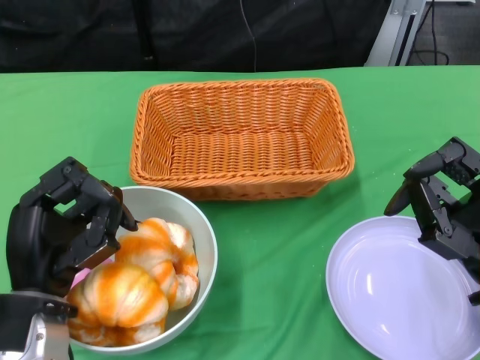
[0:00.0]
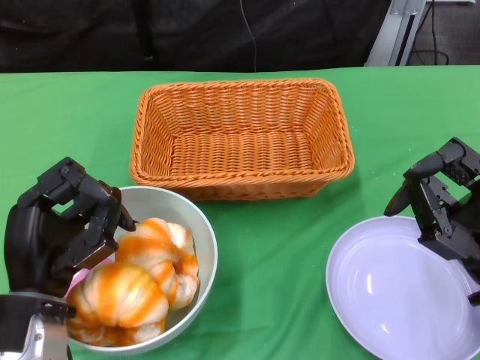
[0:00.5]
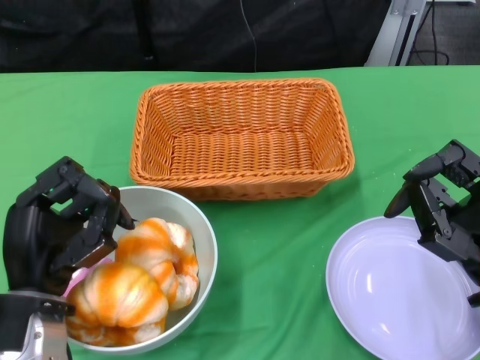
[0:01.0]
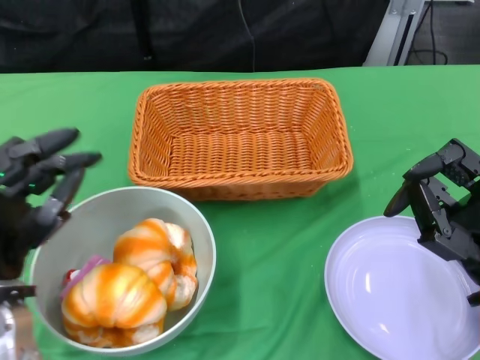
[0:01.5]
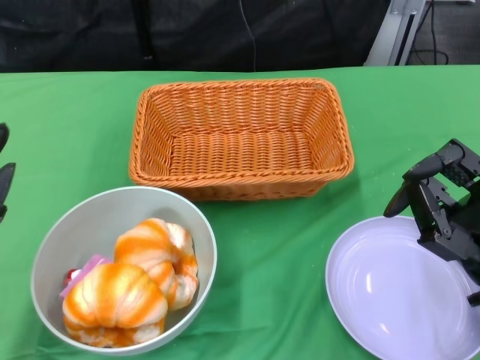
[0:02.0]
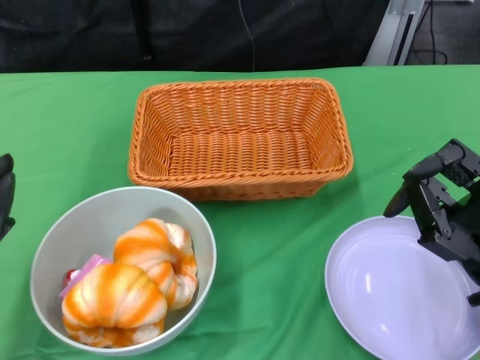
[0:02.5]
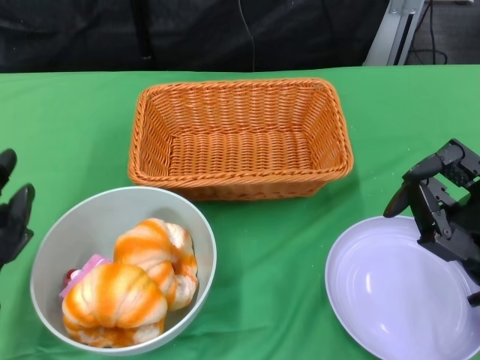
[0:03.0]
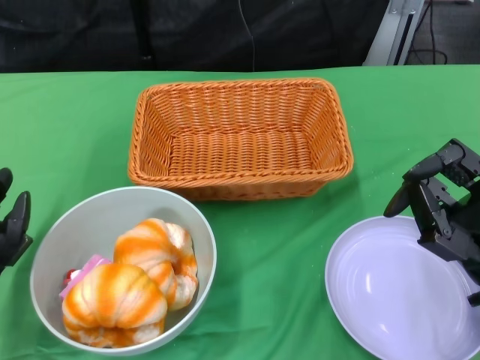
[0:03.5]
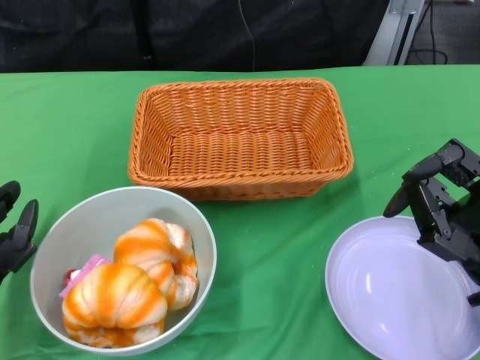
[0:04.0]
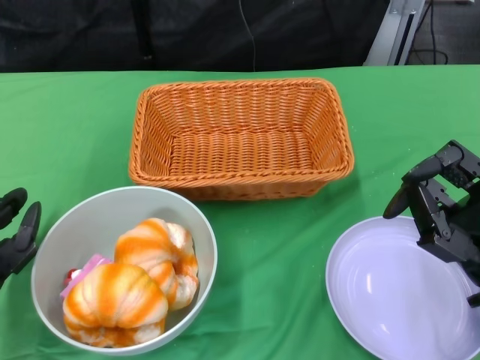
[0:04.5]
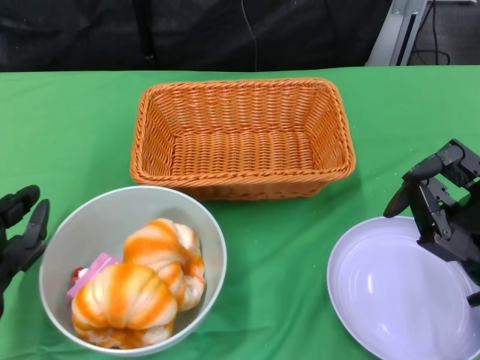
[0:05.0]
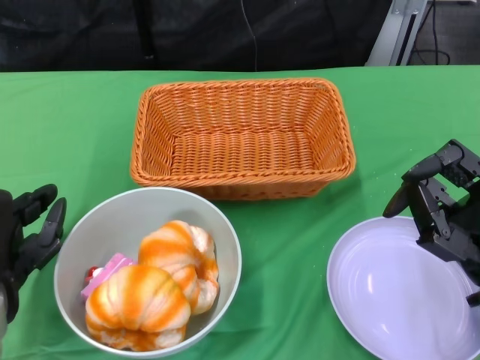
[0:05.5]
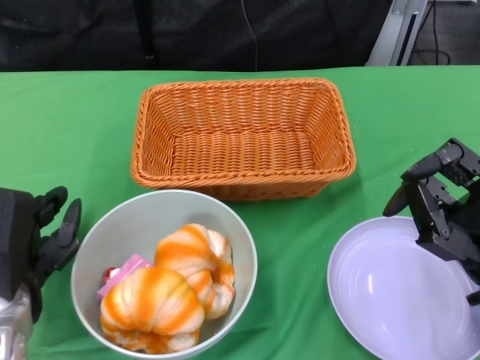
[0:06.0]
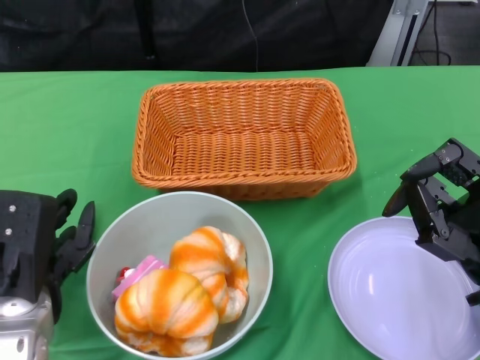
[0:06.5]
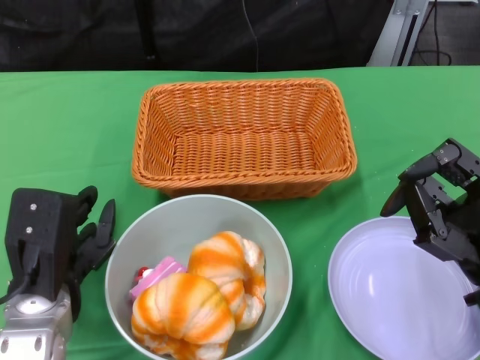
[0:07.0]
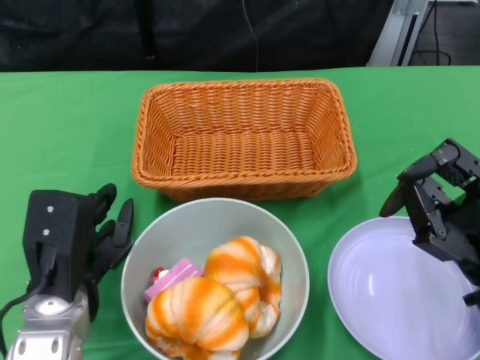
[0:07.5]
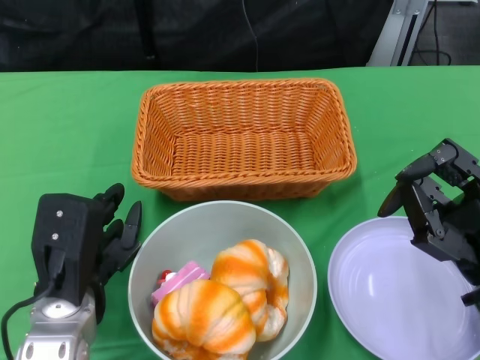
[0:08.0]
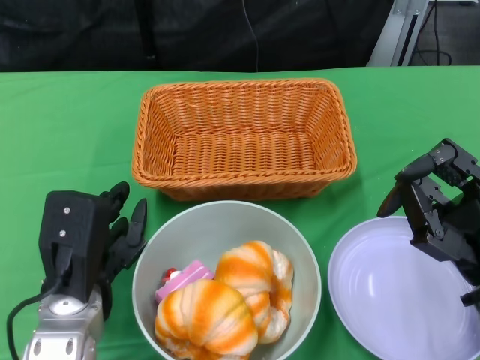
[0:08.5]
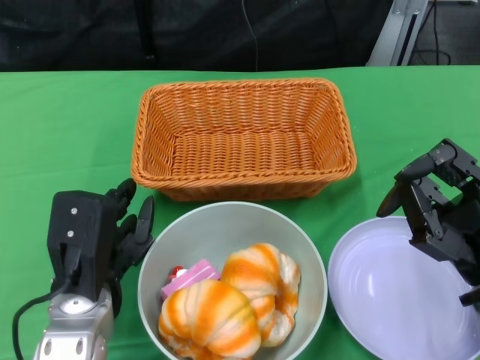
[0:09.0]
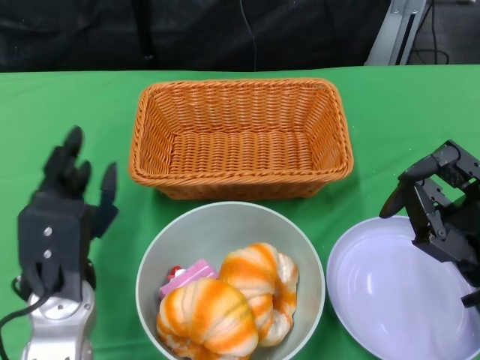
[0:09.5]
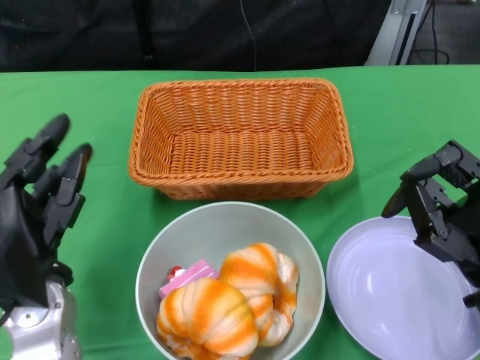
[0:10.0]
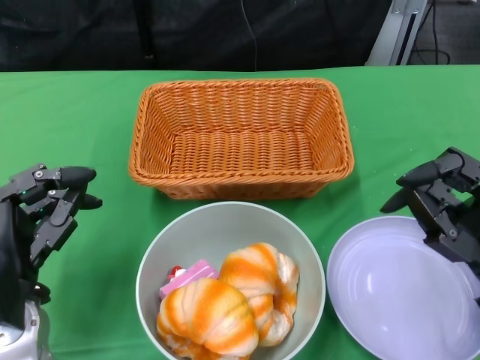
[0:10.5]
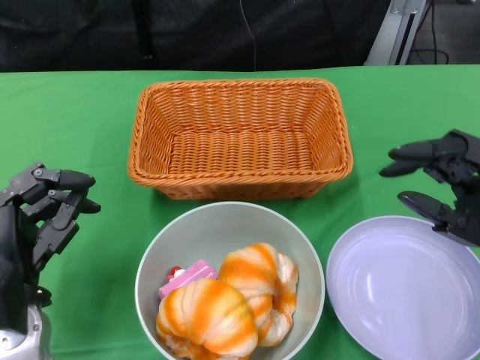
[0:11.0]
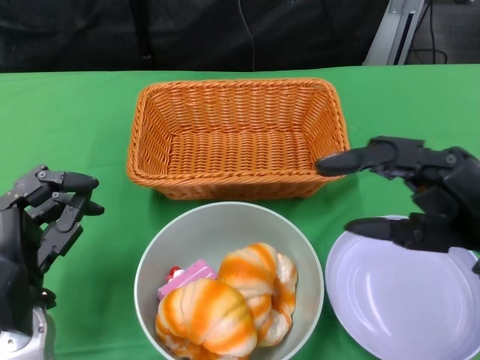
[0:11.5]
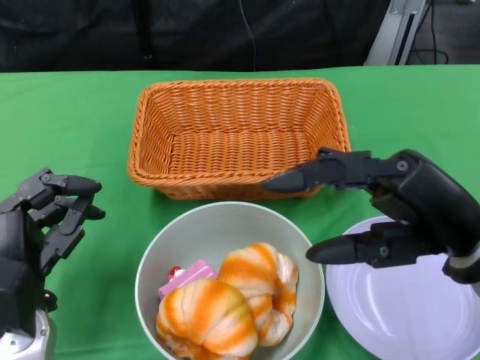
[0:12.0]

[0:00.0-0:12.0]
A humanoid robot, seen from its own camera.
Step, 0:00.0 to 0:10.5: Push the bowl to the center of the table using the left gripper.
0:06.0 to 0:08.0: The left hand goes some 5 cm to the right.
0:10.0 to 0:12.0: The right hand travels upward by some 10 cm.

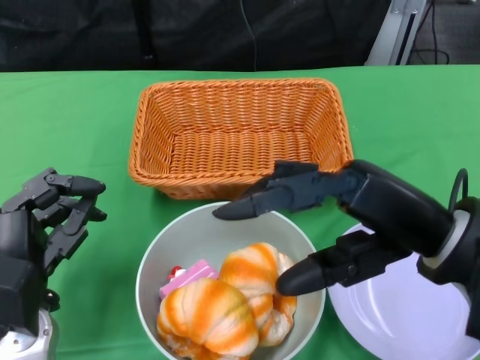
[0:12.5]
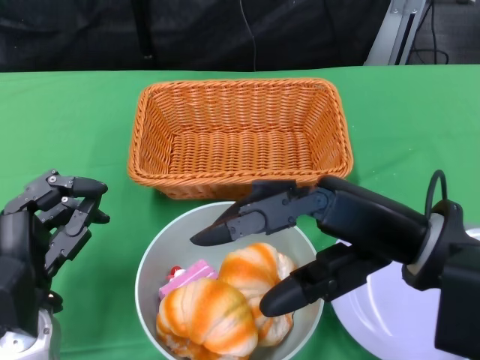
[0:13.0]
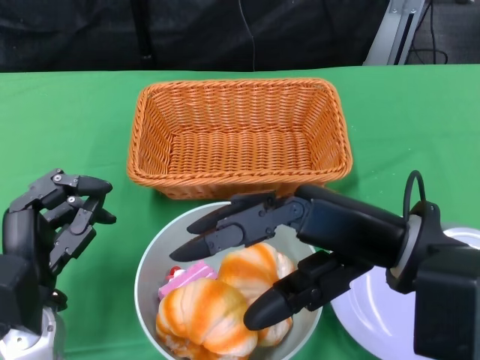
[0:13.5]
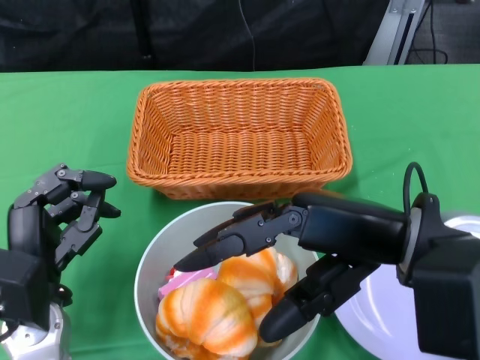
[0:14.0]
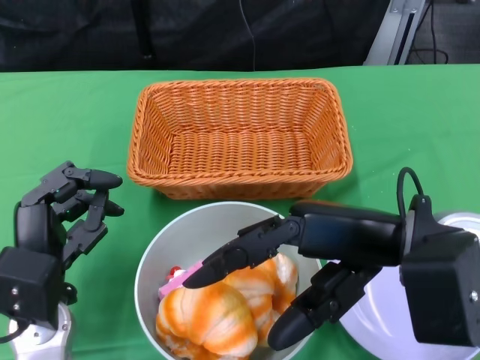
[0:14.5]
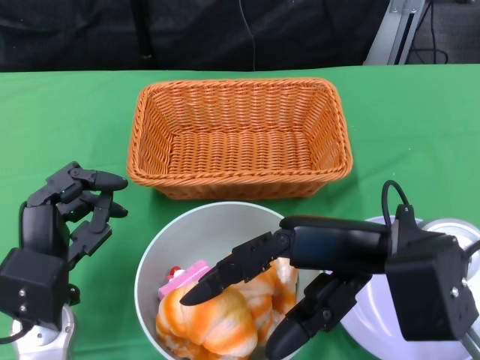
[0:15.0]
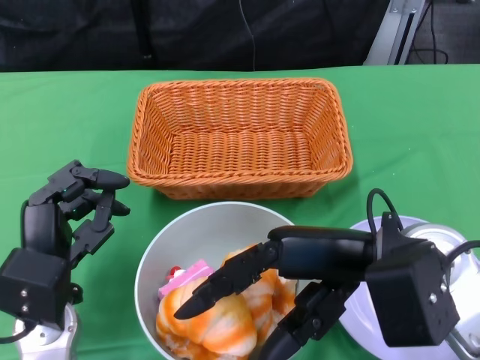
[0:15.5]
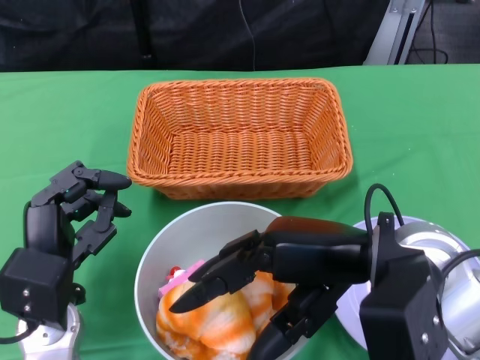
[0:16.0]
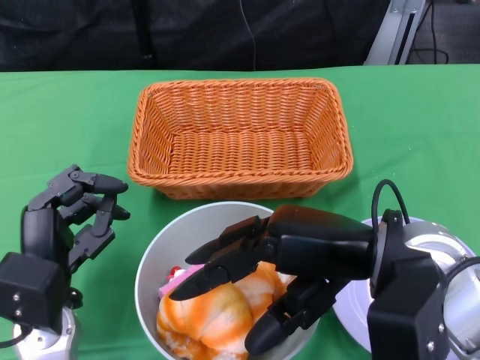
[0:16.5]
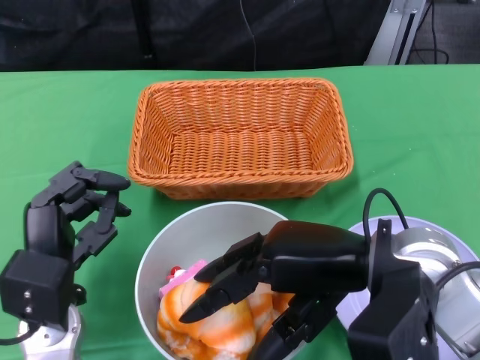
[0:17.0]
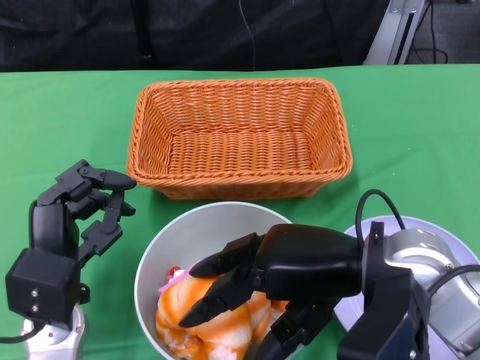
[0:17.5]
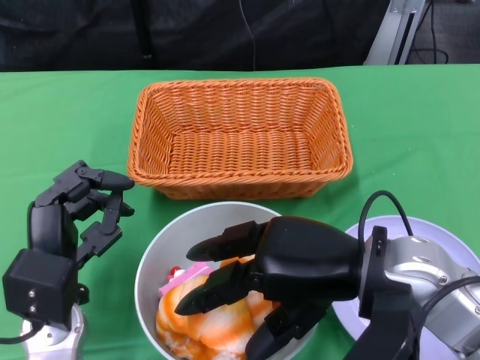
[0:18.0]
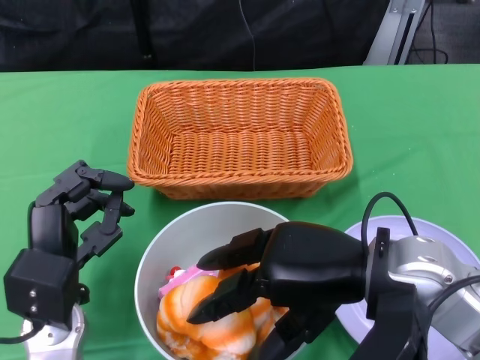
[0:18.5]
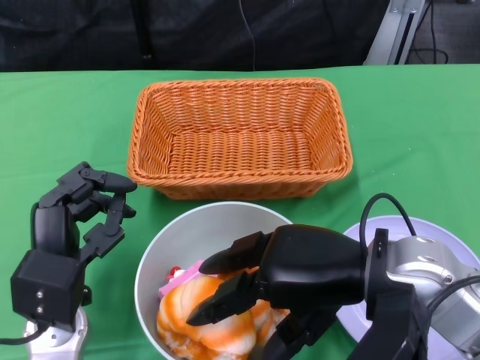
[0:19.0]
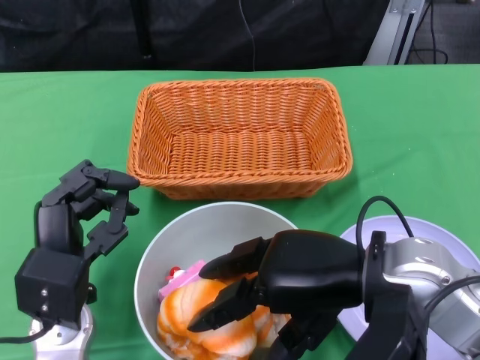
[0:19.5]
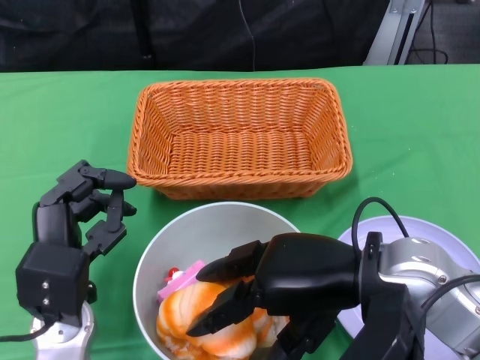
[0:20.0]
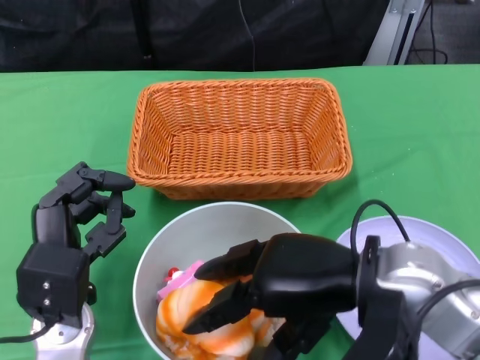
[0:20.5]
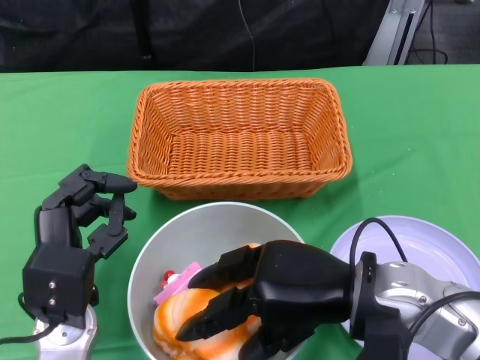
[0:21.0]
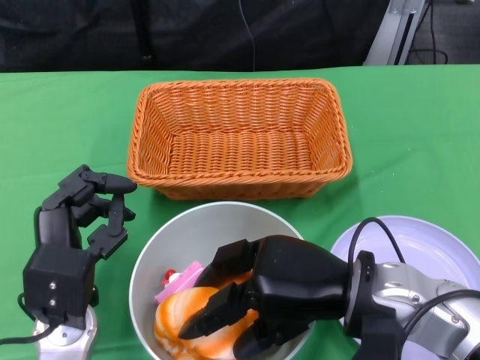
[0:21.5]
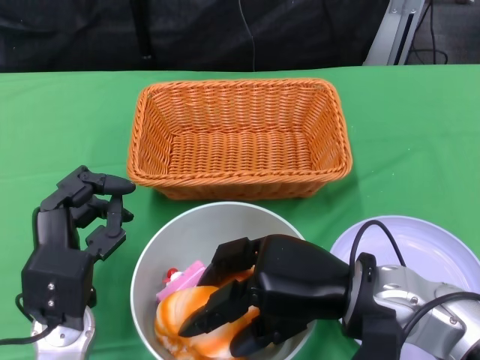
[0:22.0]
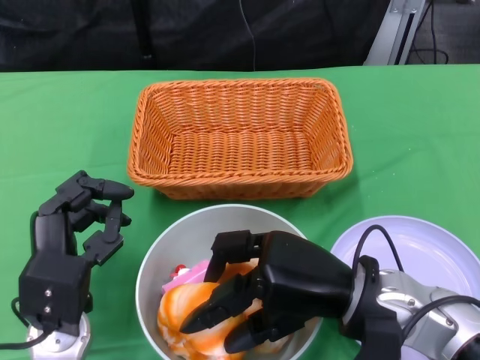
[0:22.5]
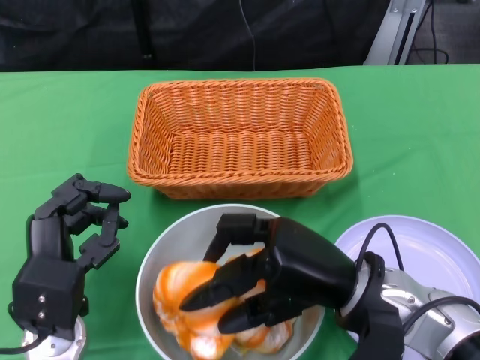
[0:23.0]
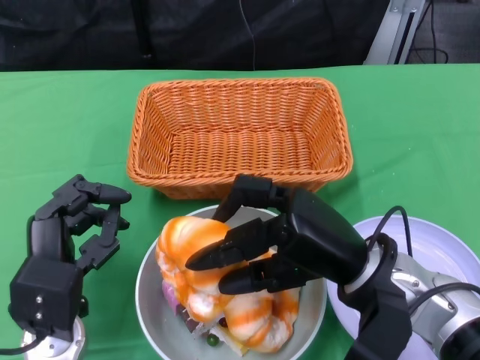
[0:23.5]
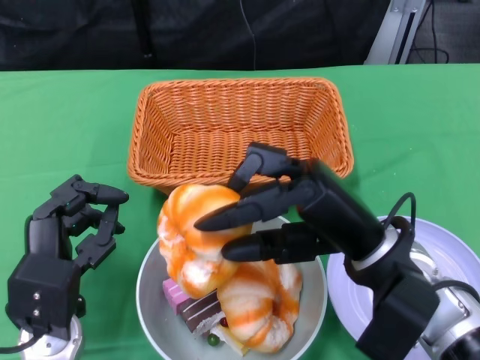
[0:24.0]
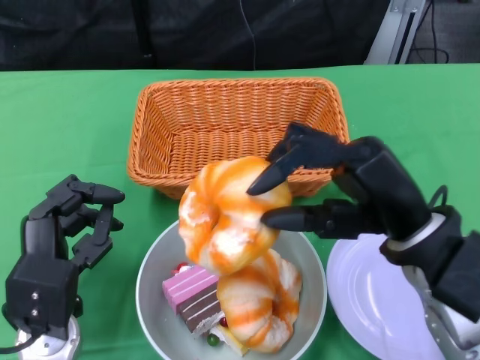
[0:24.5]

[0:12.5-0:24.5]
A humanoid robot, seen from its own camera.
0:16.5 to 0:18.5: The hands move only a little.
0:18.5 to 0:20.5: There are only small adjustments of the hands.
0:20.5 to 0:22.5: The right hand goes about 5 cm downward.
0:22.5 to 0:24.5: The right hand ends up about 5 cm from where it was.

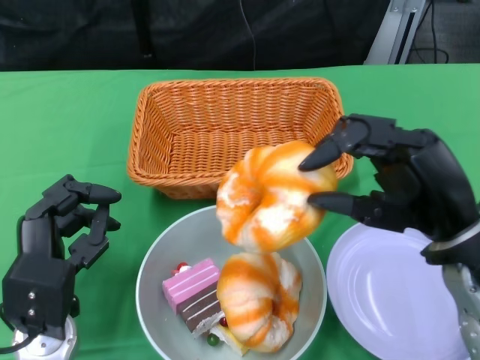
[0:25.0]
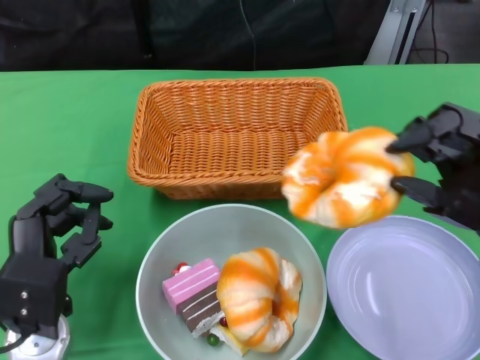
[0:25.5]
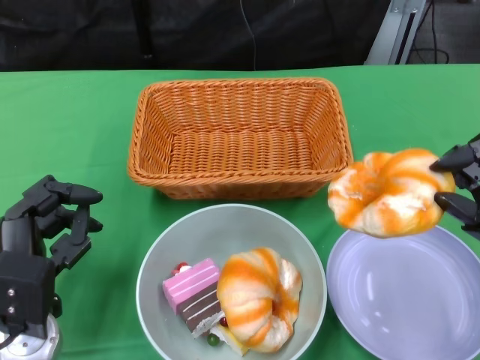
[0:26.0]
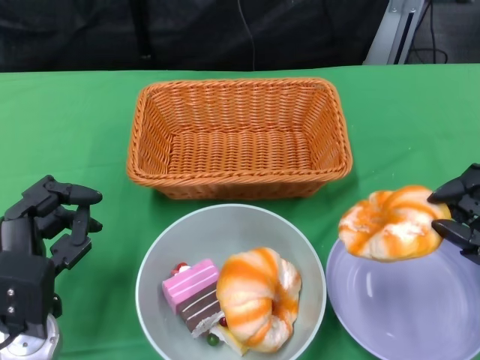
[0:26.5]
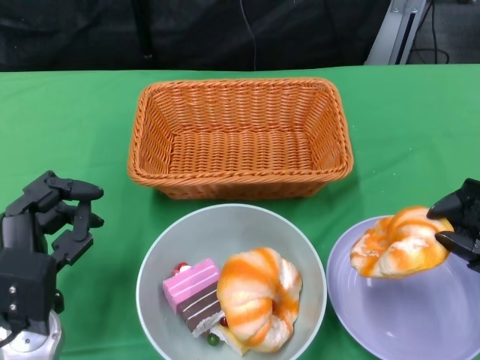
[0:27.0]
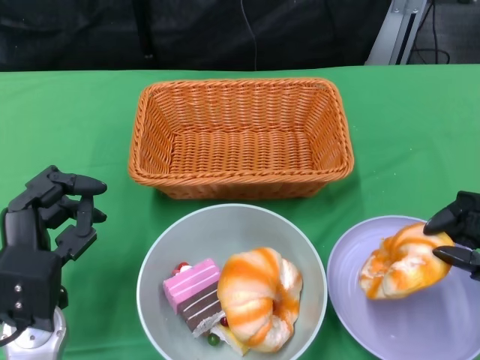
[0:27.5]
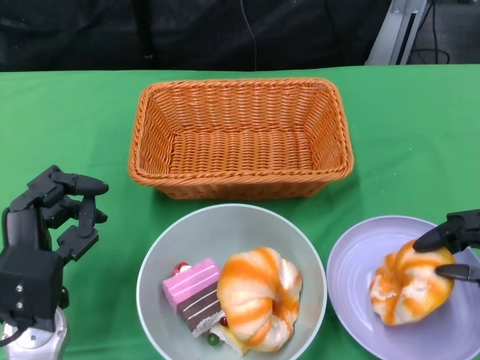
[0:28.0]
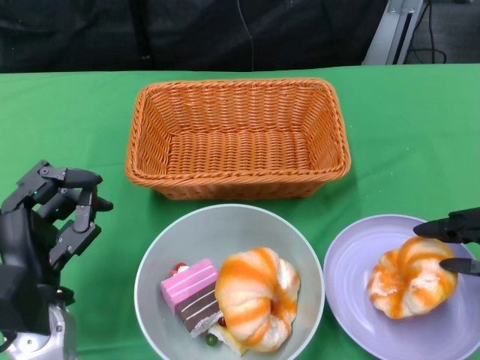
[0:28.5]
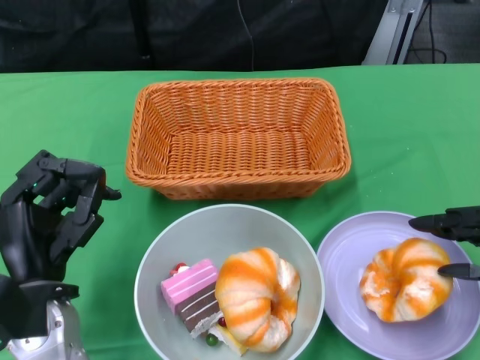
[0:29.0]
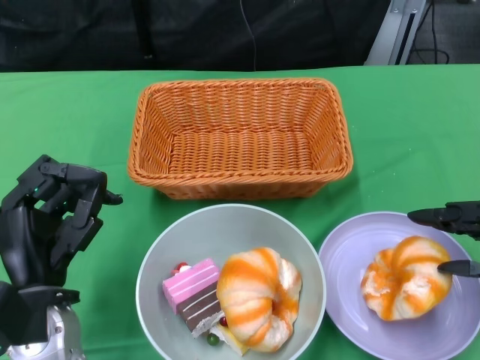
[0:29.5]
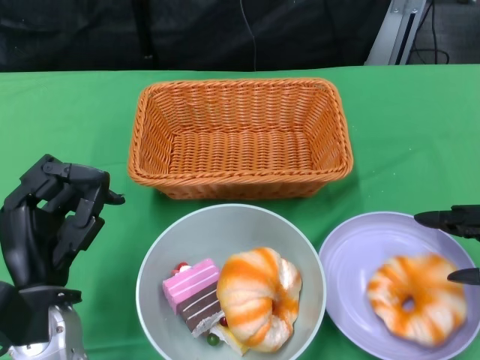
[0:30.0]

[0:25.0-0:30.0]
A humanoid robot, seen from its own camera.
0:25.0 to 0:27.5: The right hand heads to the right and downward, covering roughly 15 cm.
